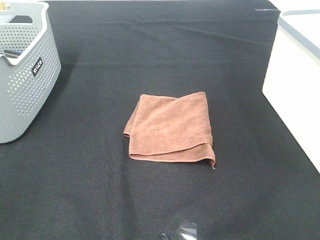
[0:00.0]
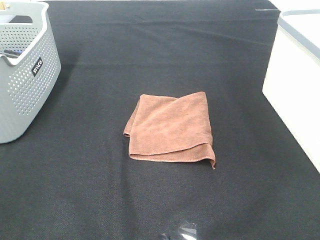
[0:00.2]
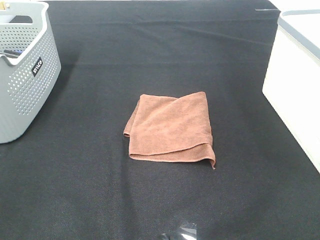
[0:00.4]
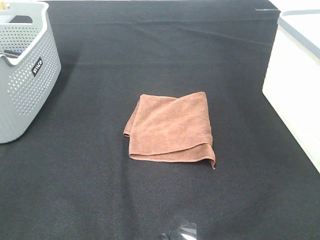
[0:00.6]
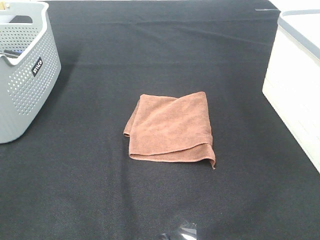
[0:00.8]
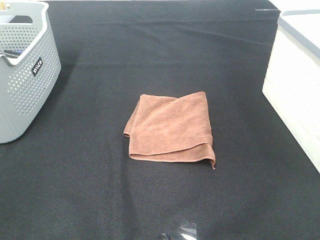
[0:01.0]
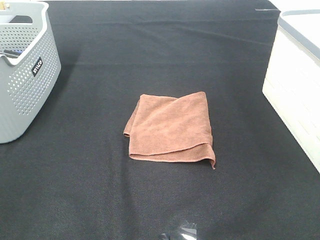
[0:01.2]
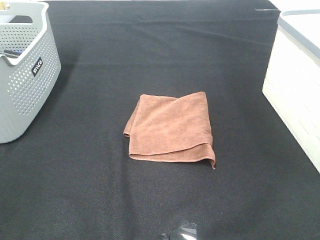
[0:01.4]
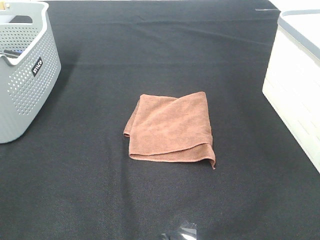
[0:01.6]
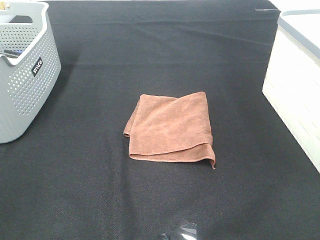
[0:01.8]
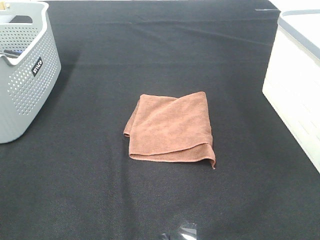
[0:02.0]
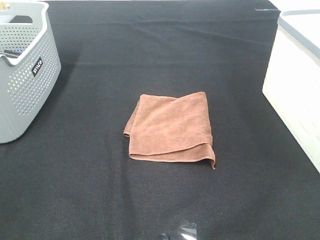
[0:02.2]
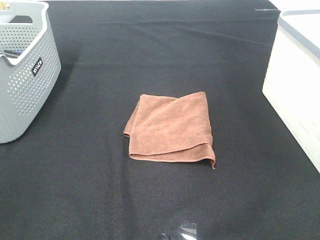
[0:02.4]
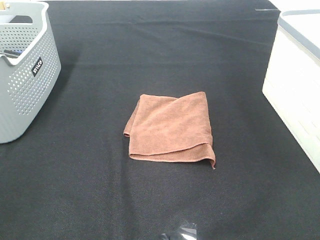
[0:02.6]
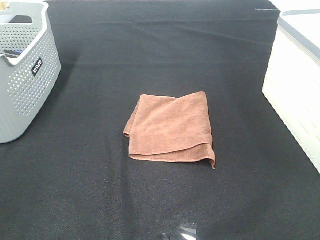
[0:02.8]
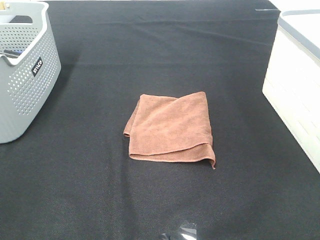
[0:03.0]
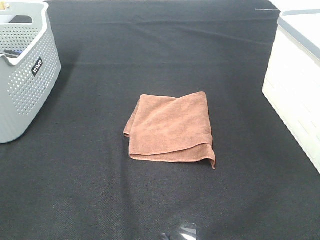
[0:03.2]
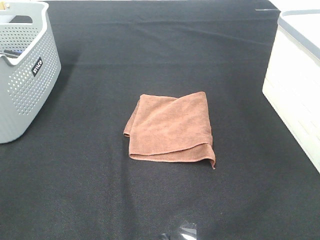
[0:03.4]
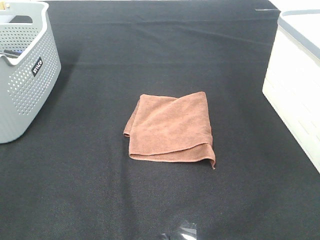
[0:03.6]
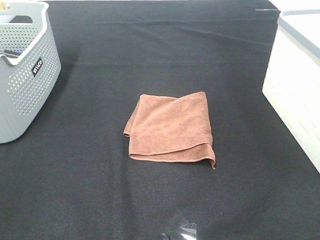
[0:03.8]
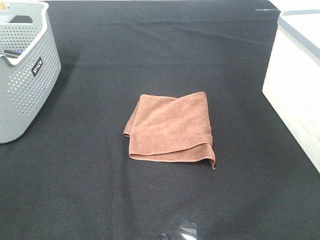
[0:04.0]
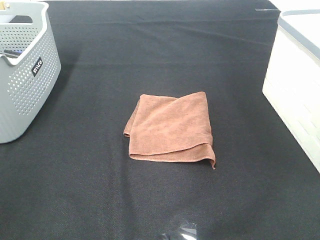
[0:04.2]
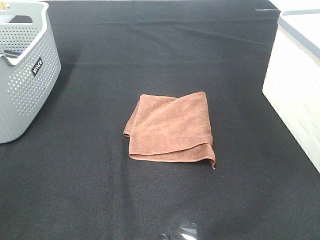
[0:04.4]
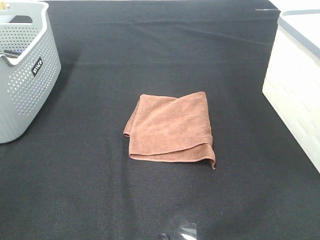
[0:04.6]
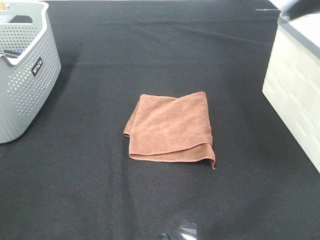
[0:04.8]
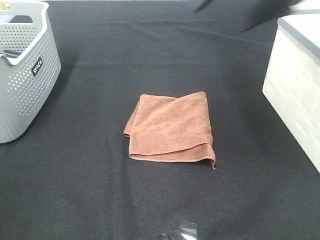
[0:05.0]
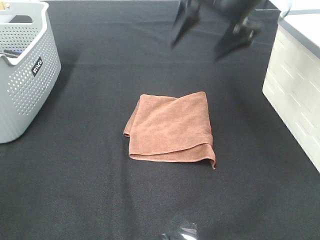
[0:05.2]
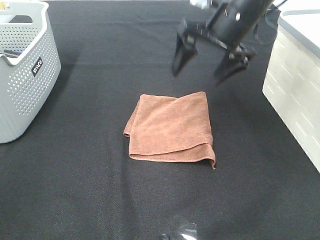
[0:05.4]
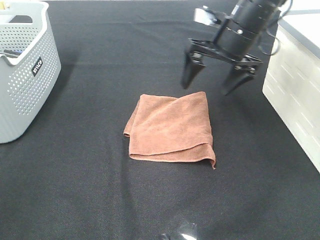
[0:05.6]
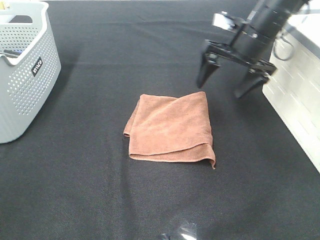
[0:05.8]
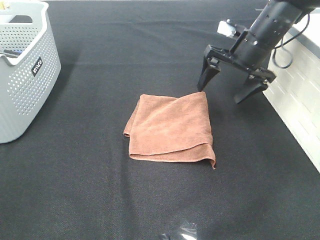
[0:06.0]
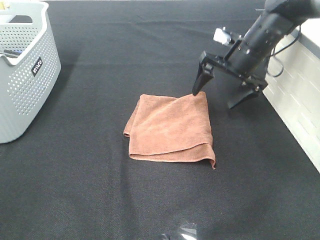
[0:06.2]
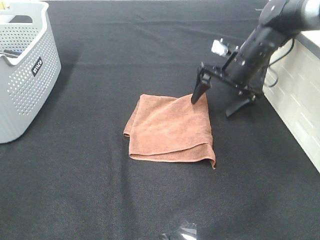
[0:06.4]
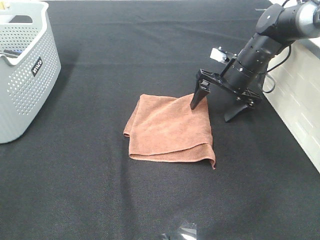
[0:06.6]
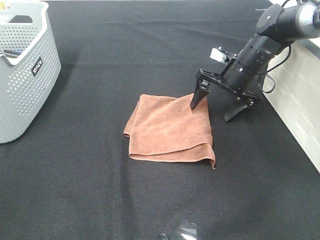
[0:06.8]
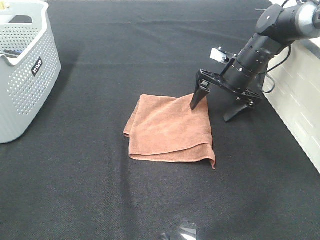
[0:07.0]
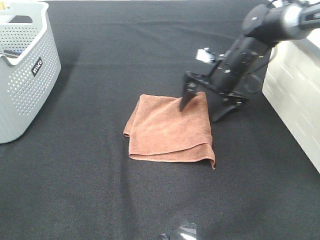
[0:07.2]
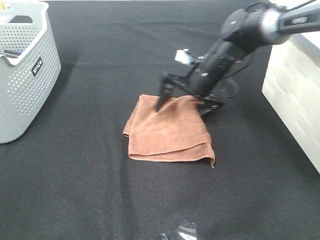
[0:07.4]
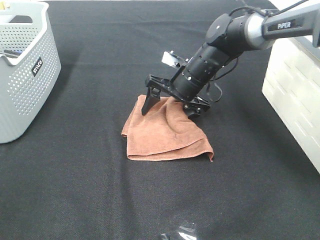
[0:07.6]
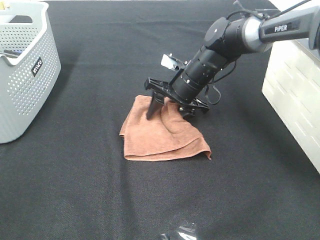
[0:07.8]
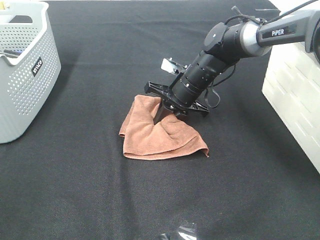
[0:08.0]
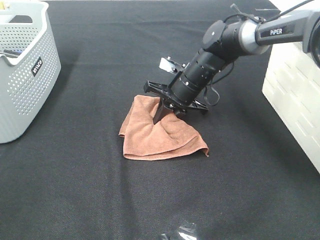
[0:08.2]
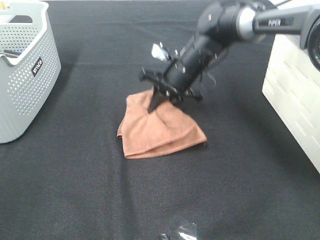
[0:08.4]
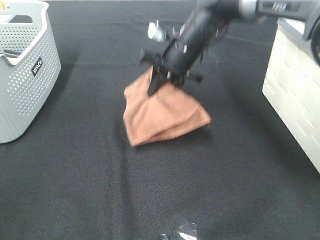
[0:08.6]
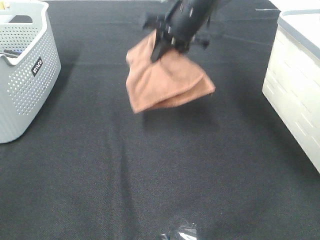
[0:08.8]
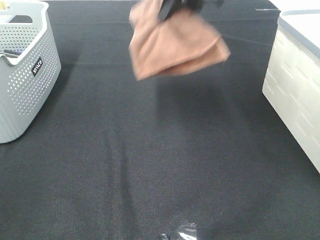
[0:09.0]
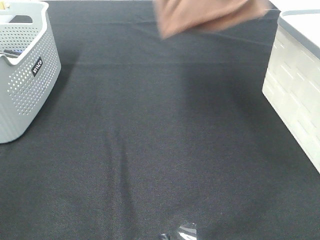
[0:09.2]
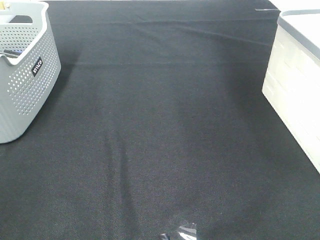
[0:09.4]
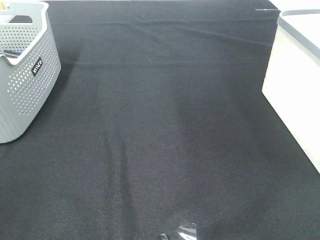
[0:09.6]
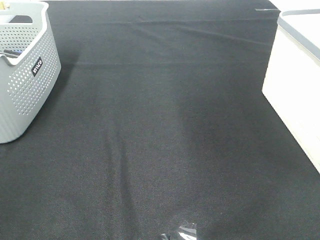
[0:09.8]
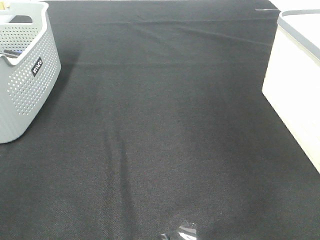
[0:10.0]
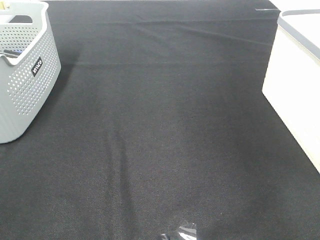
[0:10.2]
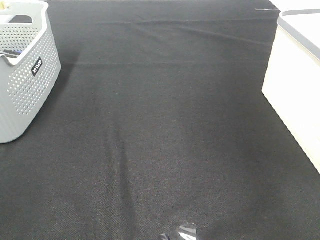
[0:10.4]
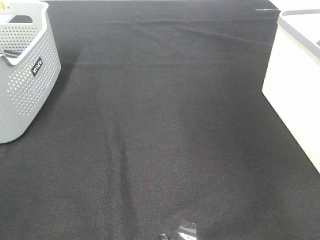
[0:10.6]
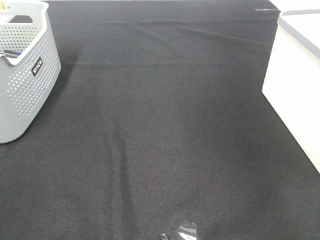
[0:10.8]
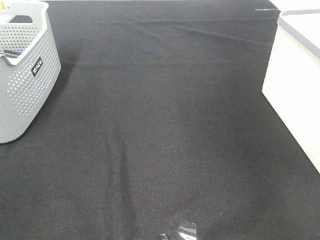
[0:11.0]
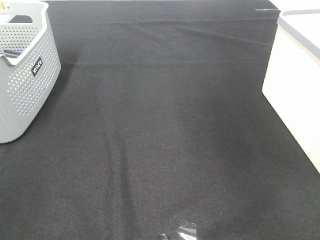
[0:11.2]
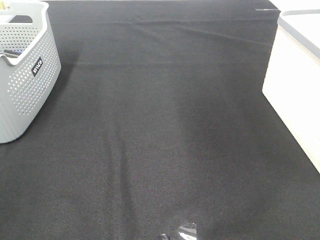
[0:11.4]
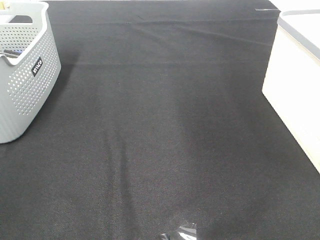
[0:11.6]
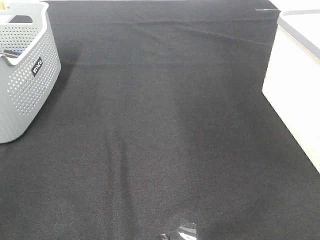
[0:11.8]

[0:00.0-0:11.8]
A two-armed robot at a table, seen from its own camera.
Step, 0.0 to 8.0 s: Right hand: grab the folded brown towel.
Step, 8.2 to 10.8 s: Right hand: place the brown towel in right basket.
0.0 to 3.0 s: Both grippers stay put.
4.4 to 6.0 s: The right gripper heads forward and downward, covering approximately 35 cm.
6.0 to 7.4 s: The right gripper shifts about 10 cm to the left and downward.
7.4 to 8.8 s: The right gripper heads upward, covering about 15 cm, and closes its fingers.
8.8 to 10.4 s: The right gripper moves to the right, approximately 30 cm.

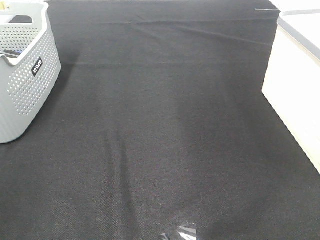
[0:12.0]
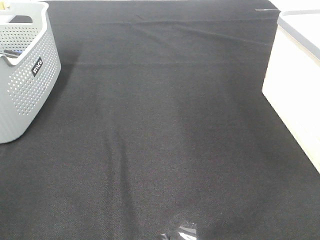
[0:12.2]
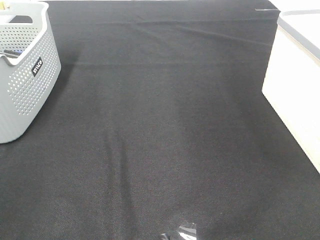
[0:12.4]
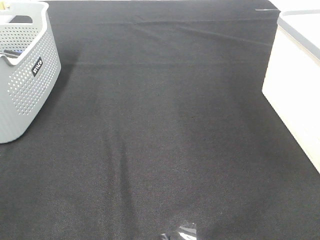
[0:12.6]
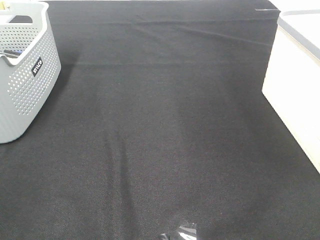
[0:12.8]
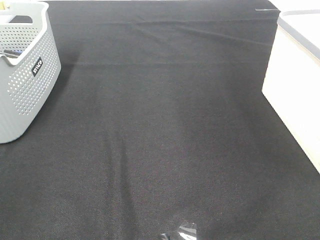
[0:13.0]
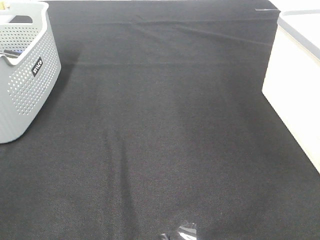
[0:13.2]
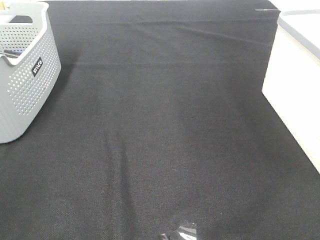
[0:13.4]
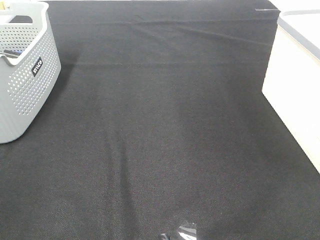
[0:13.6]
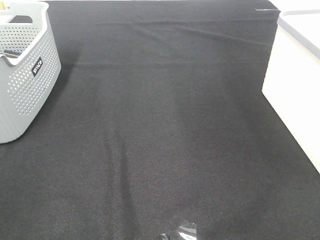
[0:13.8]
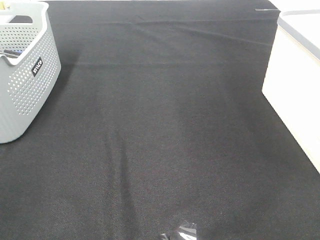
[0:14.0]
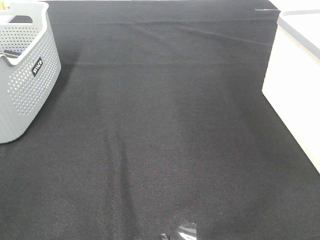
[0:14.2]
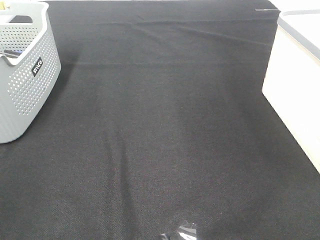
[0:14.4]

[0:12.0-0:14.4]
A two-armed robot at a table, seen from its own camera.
13.2 to 14.4 s: The two grippers keep their place.

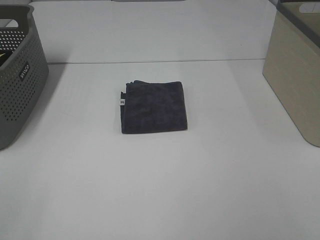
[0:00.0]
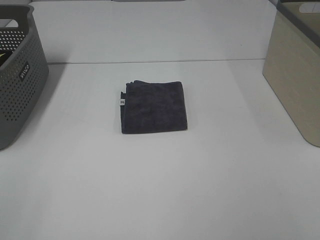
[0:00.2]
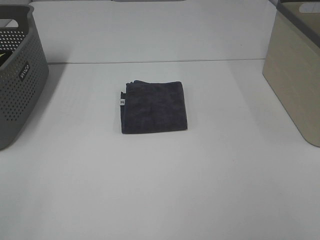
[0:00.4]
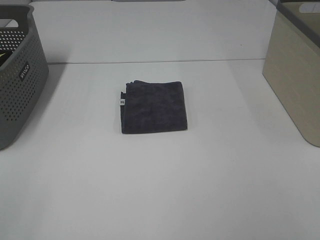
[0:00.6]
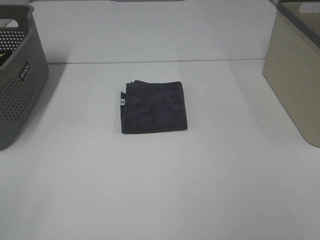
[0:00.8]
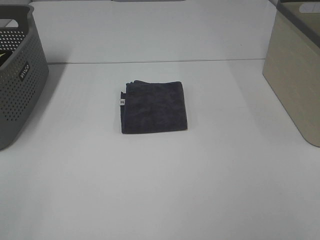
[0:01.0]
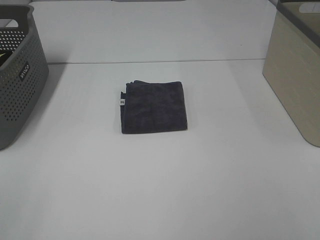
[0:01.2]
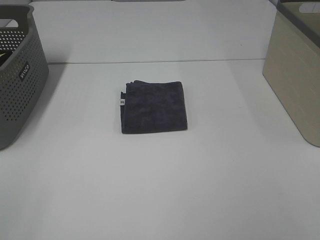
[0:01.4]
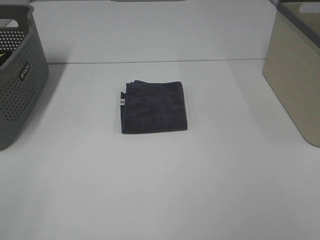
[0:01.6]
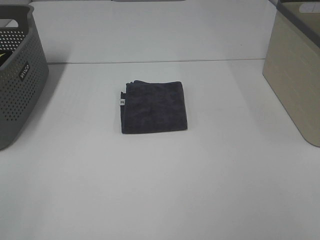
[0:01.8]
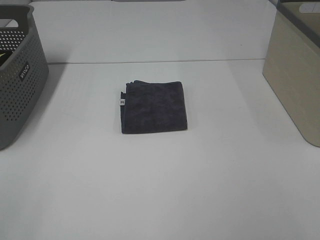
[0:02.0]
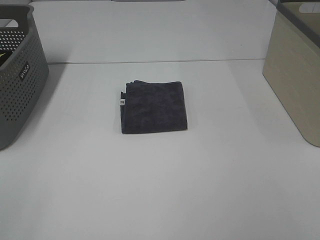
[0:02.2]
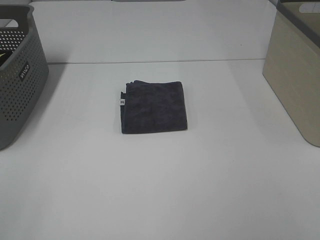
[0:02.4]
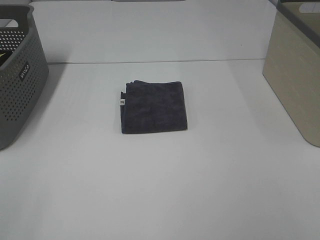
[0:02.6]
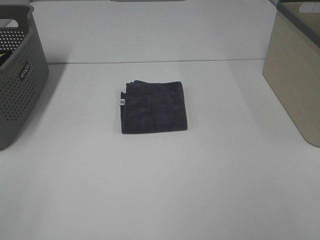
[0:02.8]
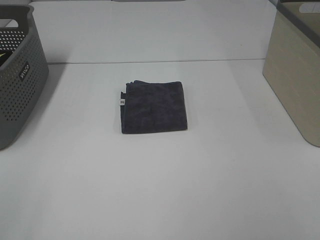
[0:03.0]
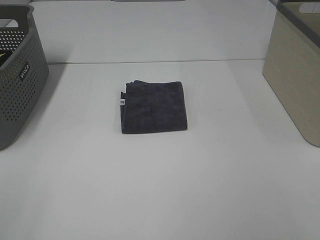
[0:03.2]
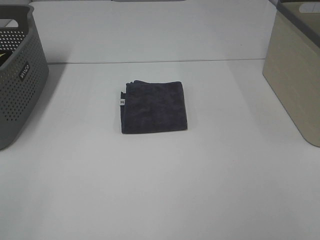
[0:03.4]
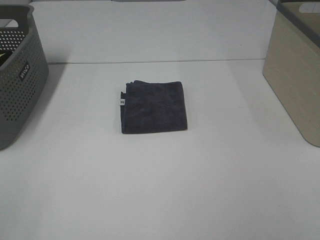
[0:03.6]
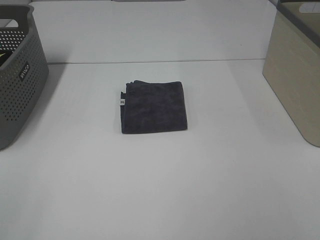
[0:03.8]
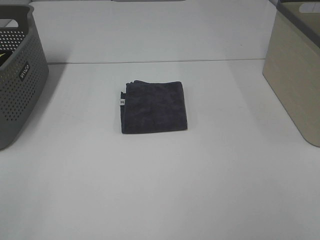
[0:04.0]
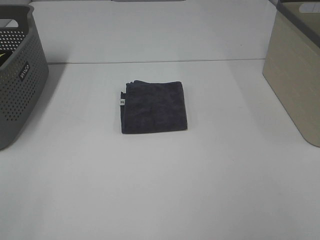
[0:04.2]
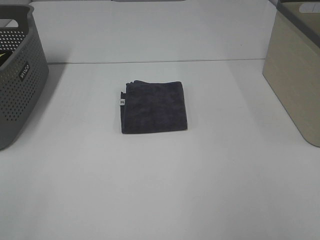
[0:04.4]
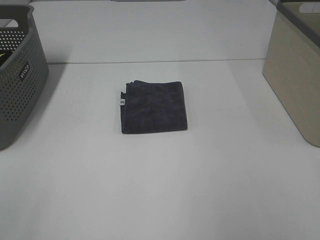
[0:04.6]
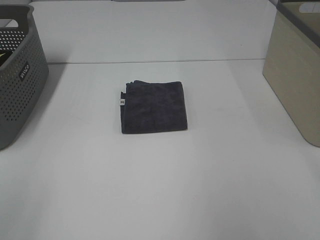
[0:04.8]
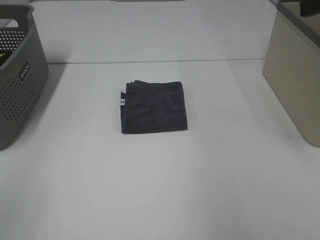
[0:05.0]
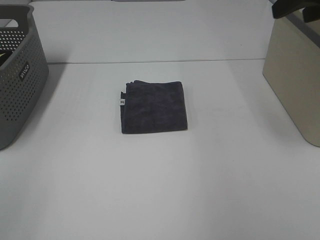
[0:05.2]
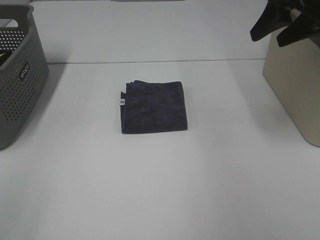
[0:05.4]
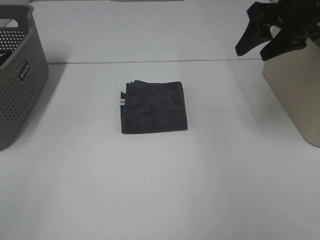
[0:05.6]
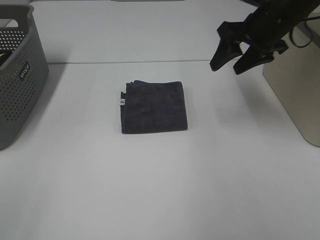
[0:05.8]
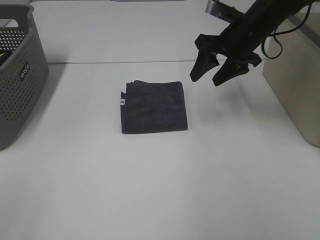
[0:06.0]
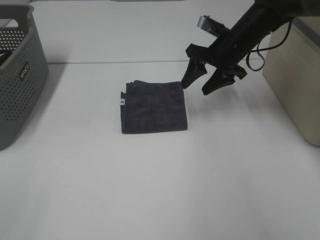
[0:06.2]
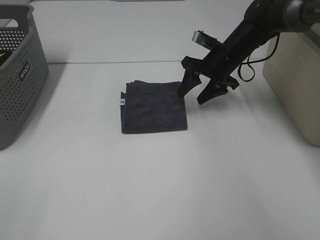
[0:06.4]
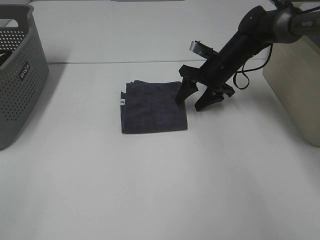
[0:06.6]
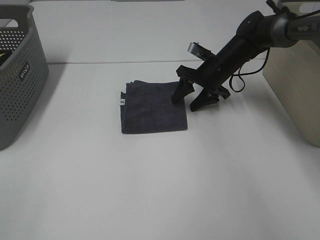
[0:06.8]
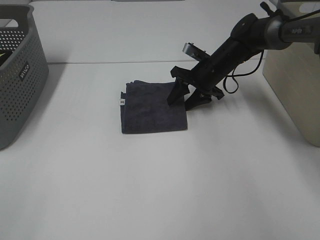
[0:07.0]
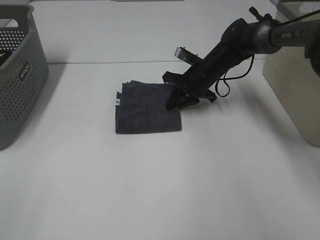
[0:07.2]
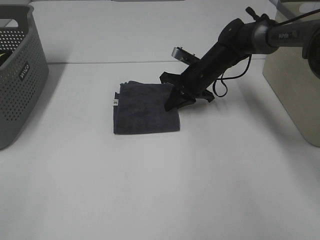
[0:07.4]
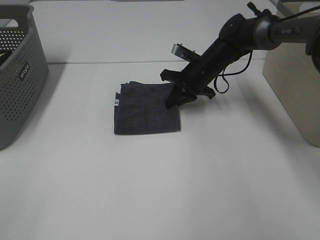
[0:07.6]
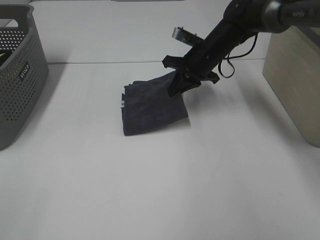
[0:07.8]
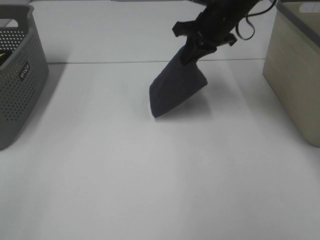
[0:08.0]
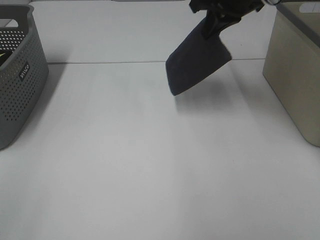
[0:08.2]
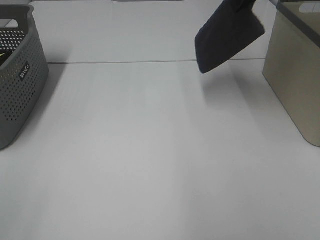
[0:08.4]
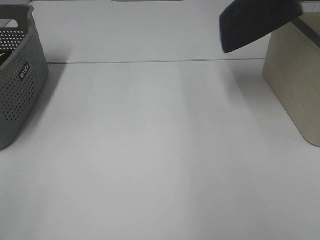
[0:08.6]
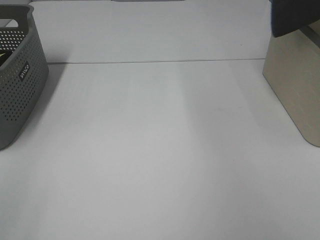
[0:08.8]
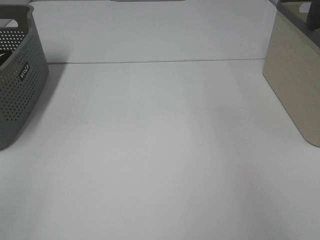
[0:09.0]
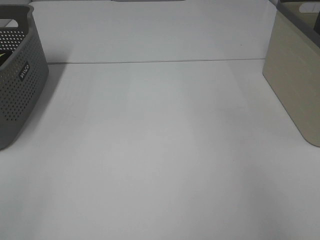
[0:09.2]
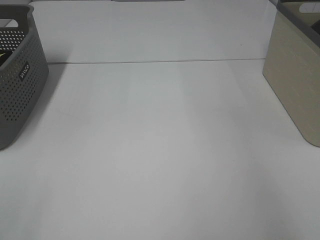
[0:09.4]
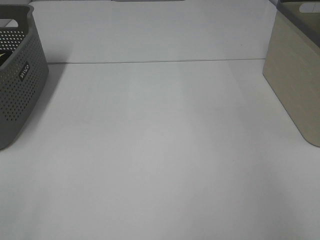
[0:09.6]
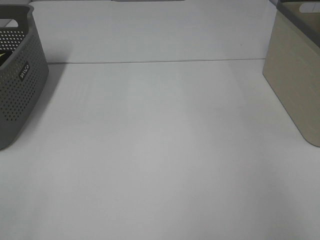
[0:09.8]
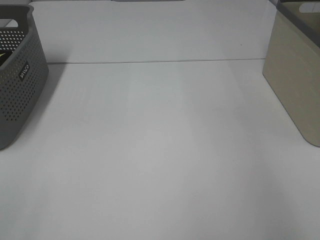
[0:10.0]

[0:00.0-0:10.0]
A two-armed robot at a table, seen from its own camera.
Step, 0.0 to 7.2 s: Right hand: grab the folded grey towel.
Step, 7.4 to 9.8 s: Right hand: place the grey towel in right basket.
0.0 to 2.8 s: Both grippers stay put.
4.2 to 5.8 s: The right gripper shifts approximately 40 cm forward.
5.8 to 7.2 s: The right gripper heads downward, to the left and forward, covering some 20 cm, and closes its fingers.
7.2 to 8.6 s: The right gripper is displaced upward and to the right by about 35 cm.
8.6 to 10.0 s: The right gripper heads to the right and downward, covering approximately 15 cm, and opens.
